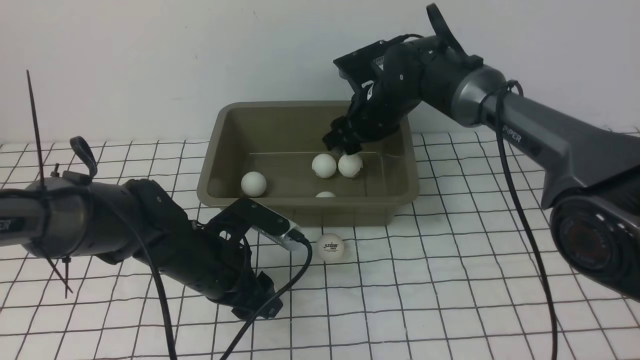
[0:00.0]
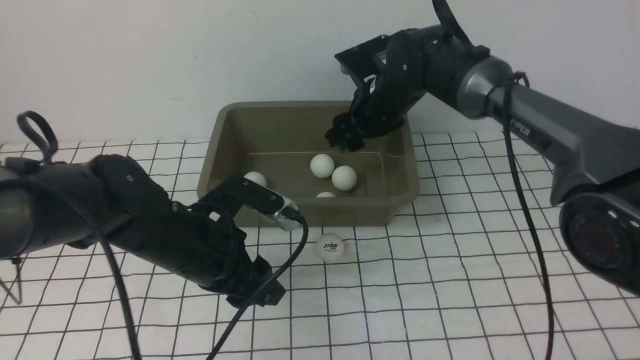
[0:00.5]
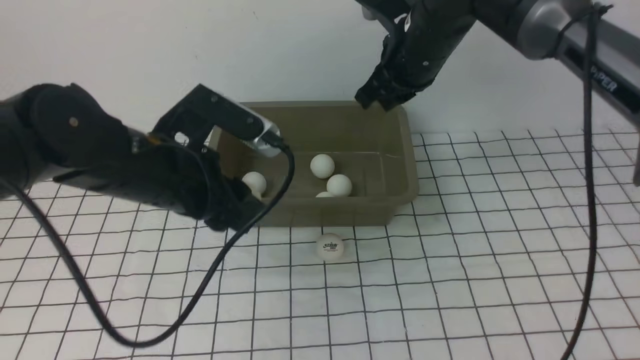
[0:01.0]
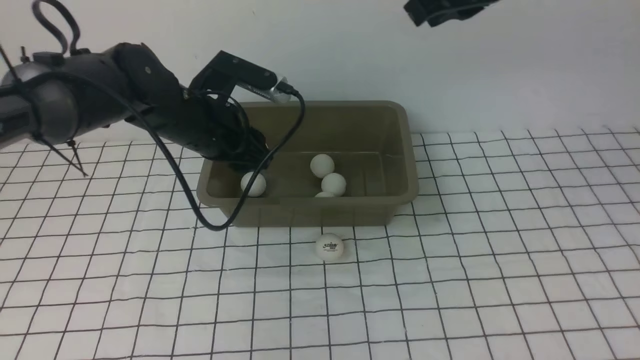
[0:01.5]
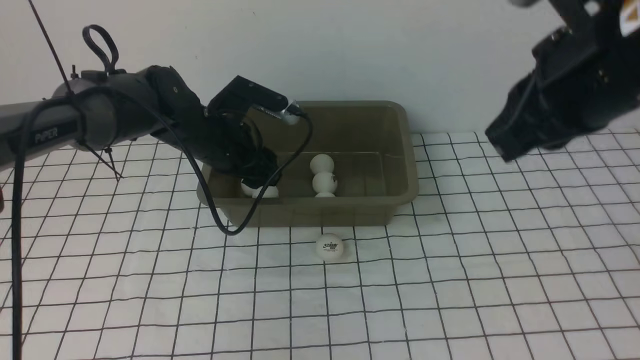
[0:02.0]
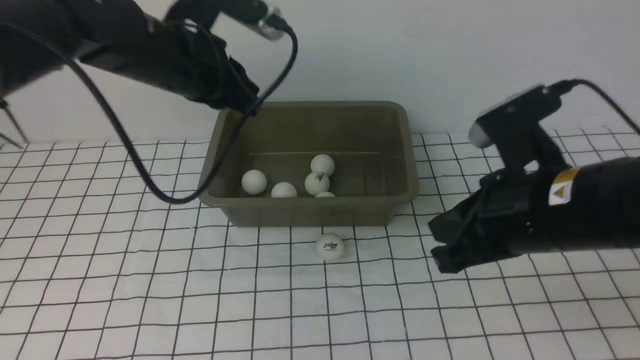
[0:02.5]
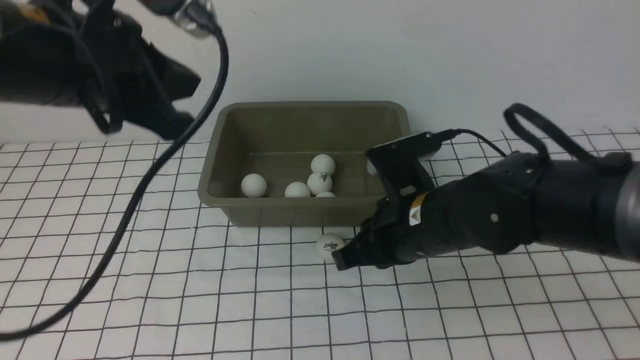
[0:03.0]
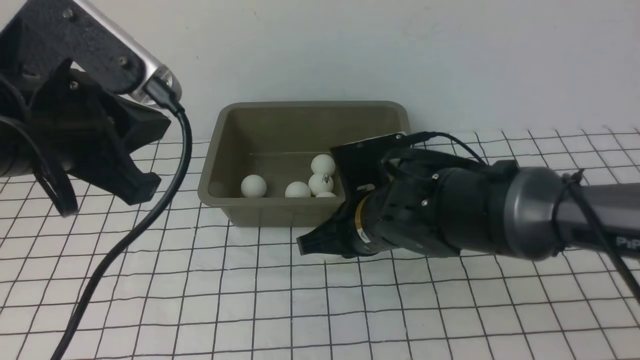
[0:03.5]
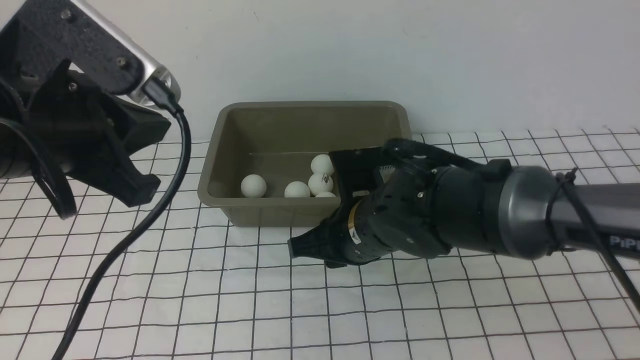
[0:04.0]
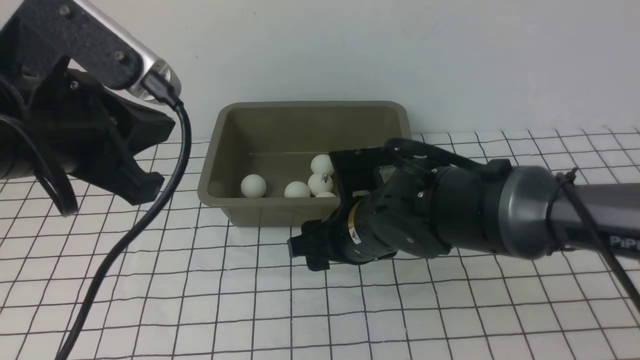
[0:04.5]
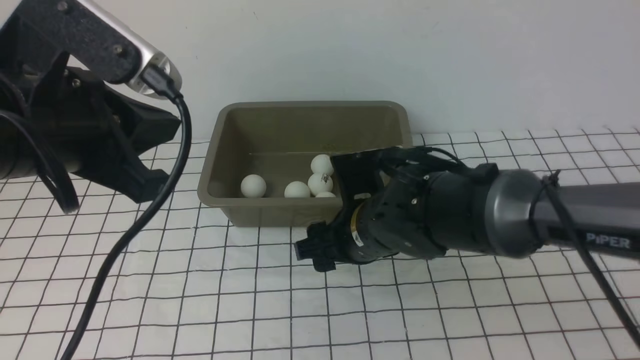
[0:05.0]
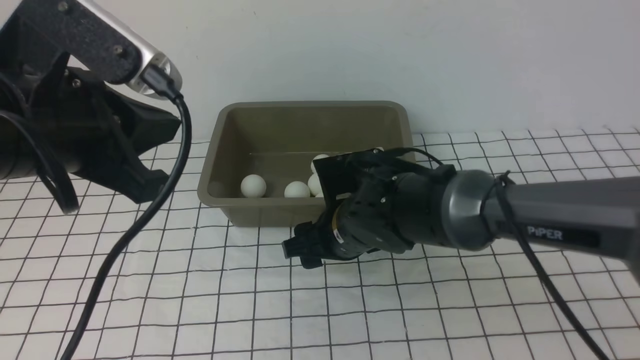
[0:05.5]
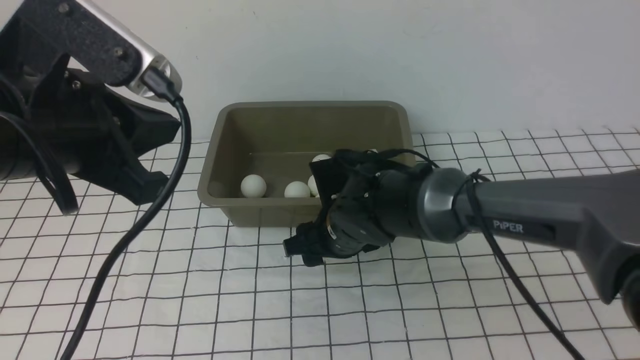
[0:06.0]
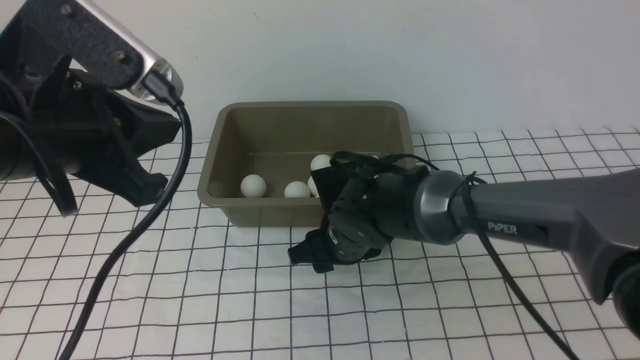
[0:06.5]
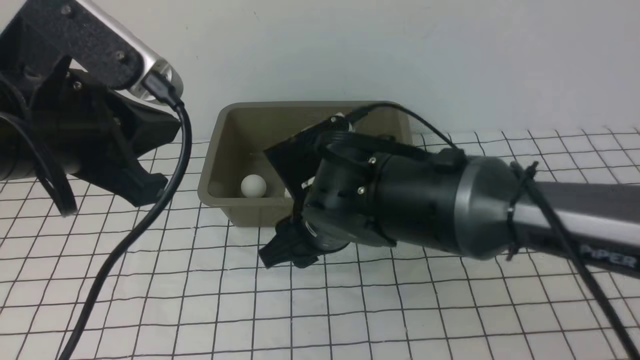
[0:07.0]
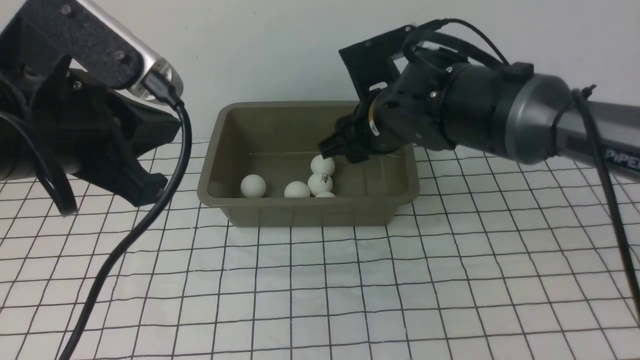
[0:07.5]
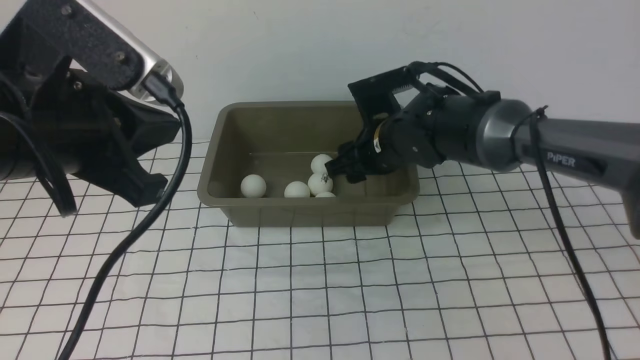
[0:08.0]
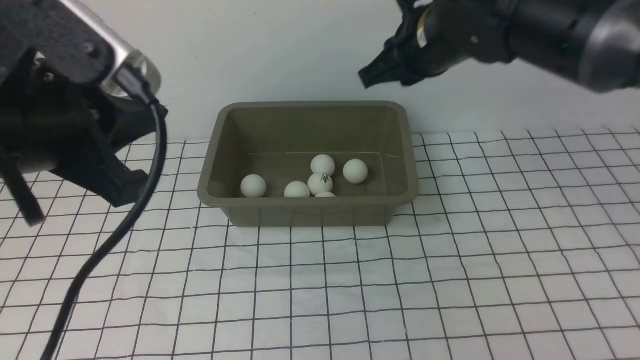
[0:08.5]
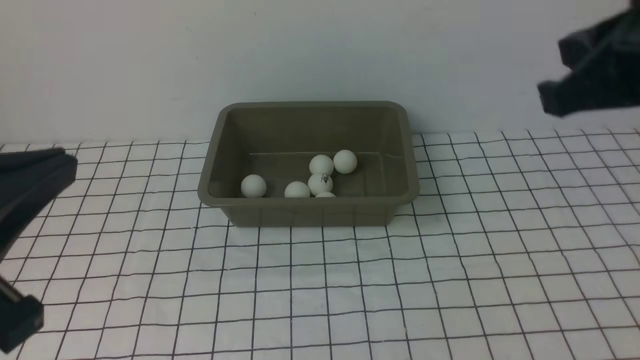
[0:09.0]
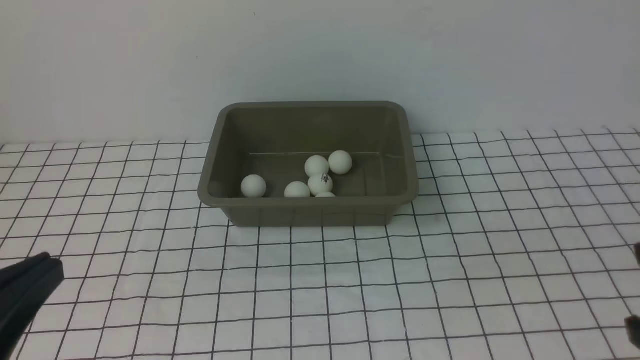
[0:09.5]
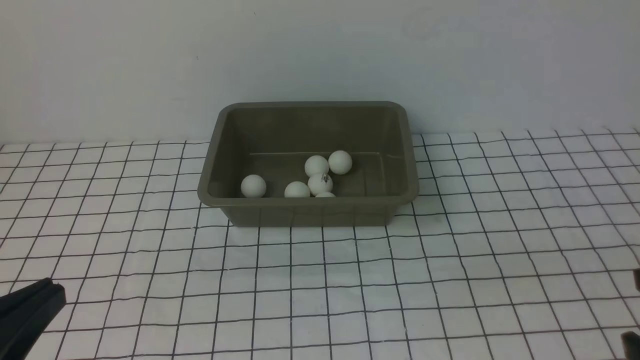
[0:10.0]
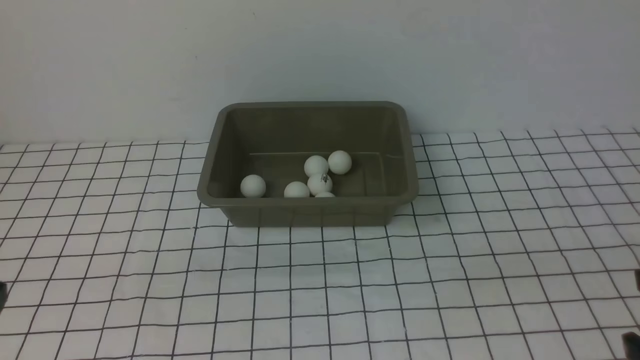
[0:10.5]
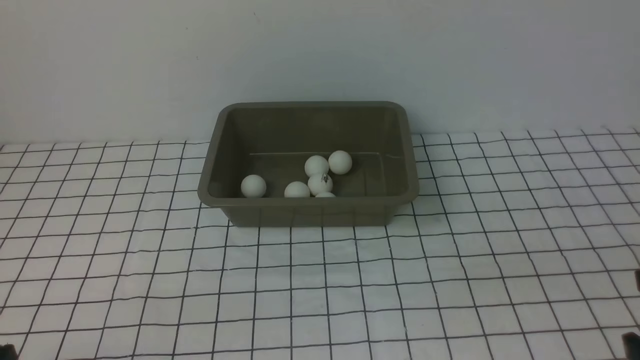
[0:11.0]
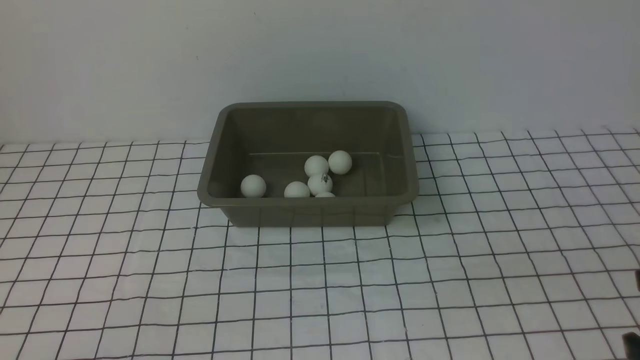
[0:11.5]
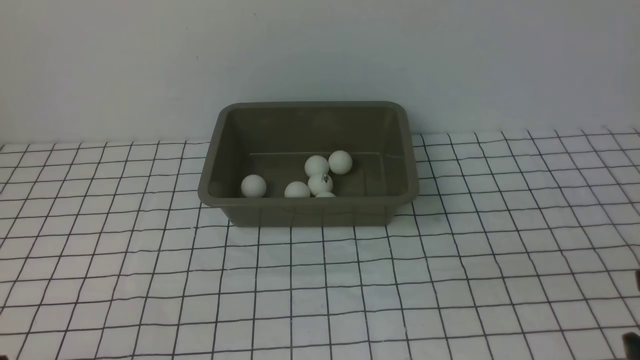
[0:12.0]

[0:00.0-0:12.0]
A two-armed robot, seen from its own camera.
Step, 0:01.0 to 0:02.0: use the left arm to put the table tennis ball into the box.
Step, 0:02.5 to 0:06.5: use the right arm to clamp the table tennis ball closest to it.
Step, 0:07.0 to 0:08.0: use the right arm to put the table tennis ball into the box.
0:00.0 to 0:02.0: The left gripper heads forward and upward, covering about 15 cm, while the right gripper goes about 30 cm backward, upward and to the right, and closes its fingers.
0:02.0 to 0:04.0: The left gripper goes roughly 25 cm backward and upward, and closes its fingers. The right gripper heads downward and to the left, covering approximately 25 cm, and opens up.
0:04.0 to 0:06.0: The right gripper shifts roughly 5 cm downward, and opens up.
0:06.0 to 0:08.0: The right gripper moves forward, upward and to the right, roughly 10 cm.
0:08.0 to 0:10.0: The right gripper moves backward and to the right, some 35 cm, and closes its fingers, while the left gripper goes about 20 cm backward and downward.
0:10.0 to 0:12.0: The left gripper is displaced downward by roughly 10 cm.
